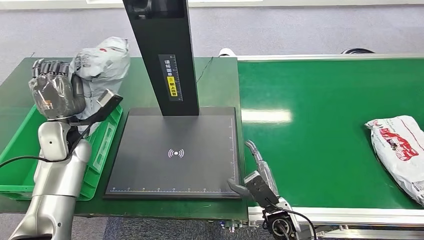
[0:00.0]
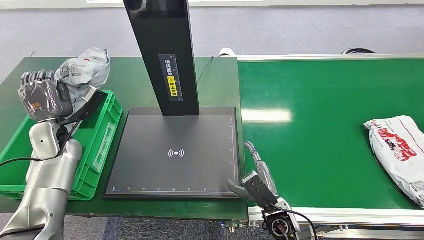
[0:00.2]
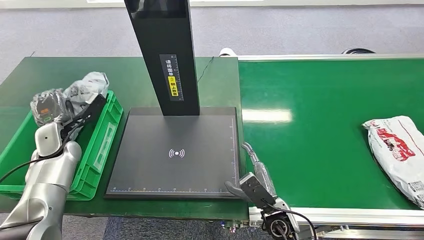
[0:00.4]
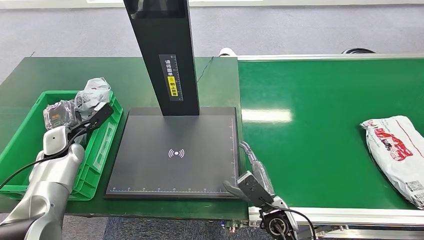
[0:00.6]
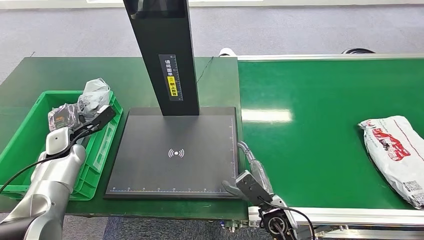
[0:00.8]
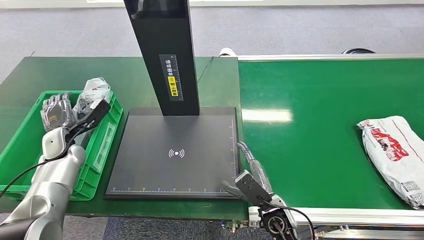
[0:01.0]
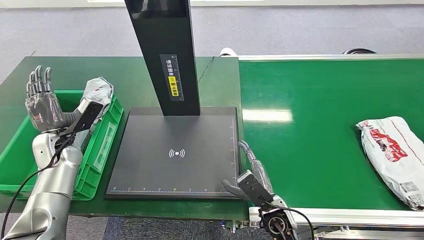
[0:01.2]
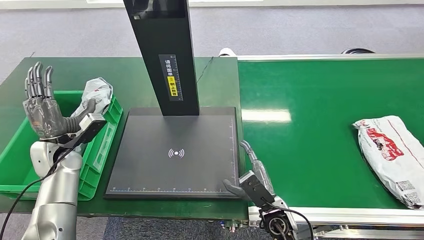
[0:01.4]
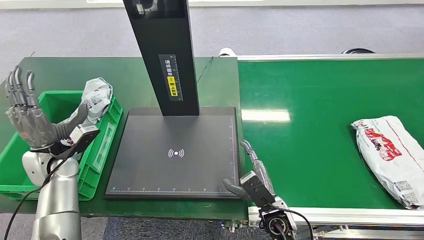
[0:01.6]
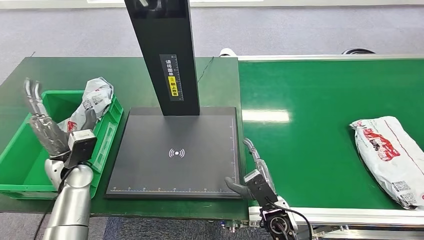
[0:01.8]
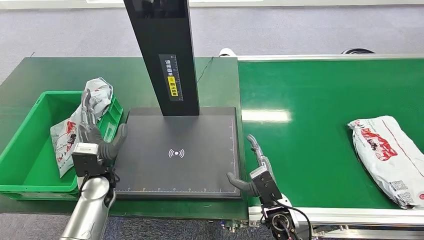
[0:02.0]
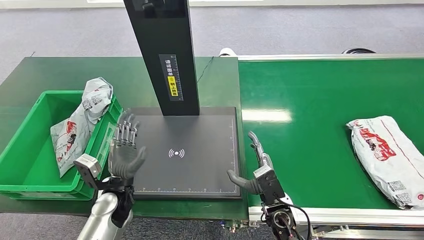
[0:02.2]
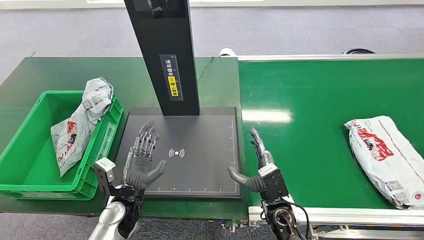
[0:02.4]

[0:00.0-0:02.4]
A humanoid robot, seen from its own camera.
Step, 0:00.0 to 0:02.4: Place the package into the parcel locker.
0:00.0 to 0:01.2: The left hand shifts roughly 10 cm downward and to the left.
0:01.2 to 0:02.4: The left hand goes approximately 25 cm to the right, backward and downward.
